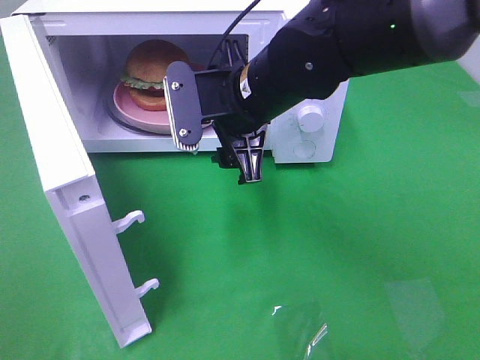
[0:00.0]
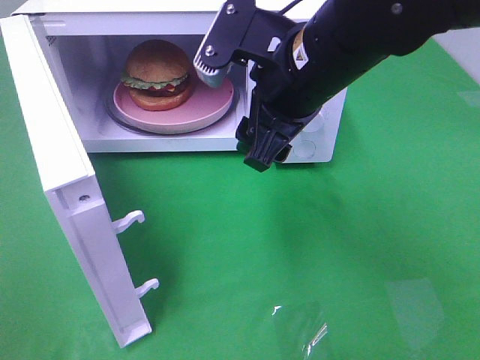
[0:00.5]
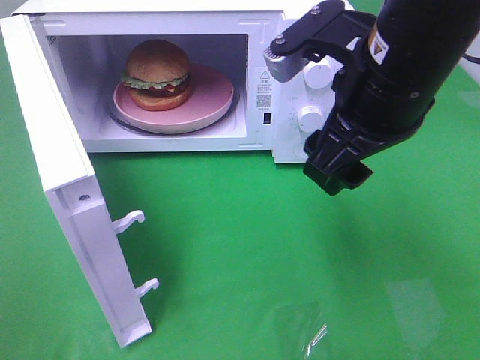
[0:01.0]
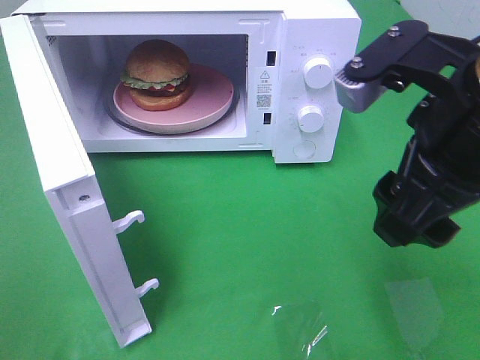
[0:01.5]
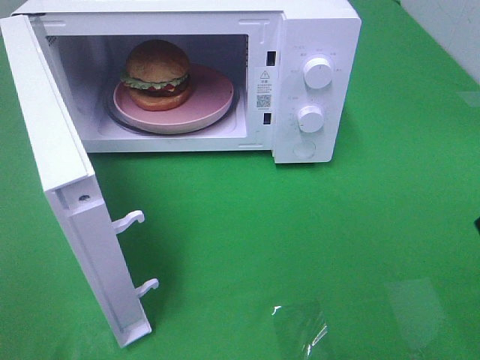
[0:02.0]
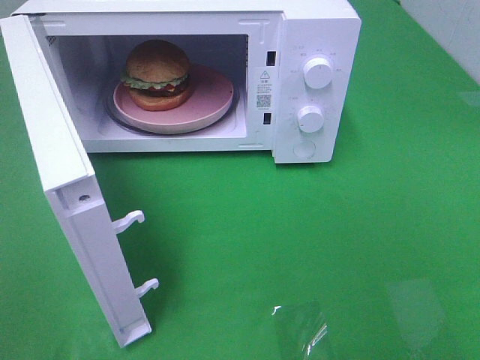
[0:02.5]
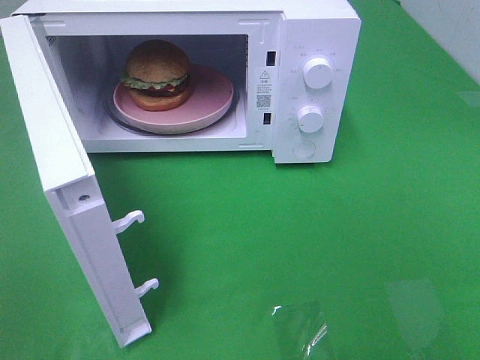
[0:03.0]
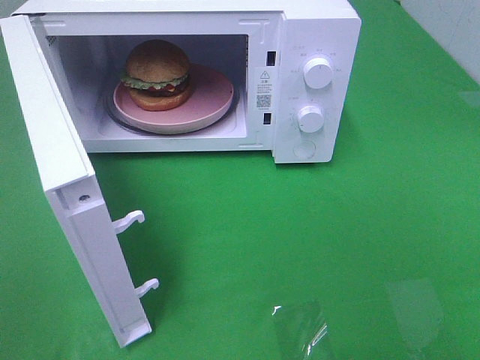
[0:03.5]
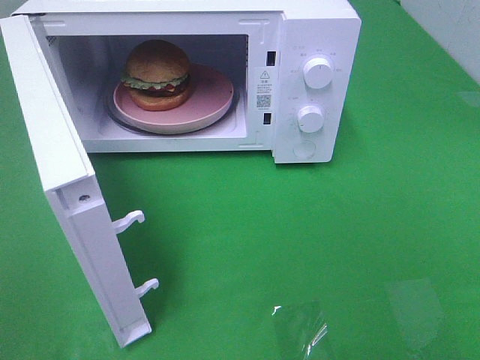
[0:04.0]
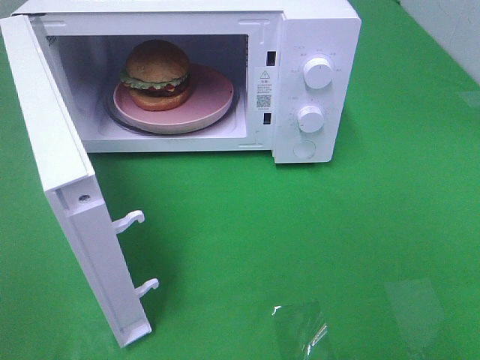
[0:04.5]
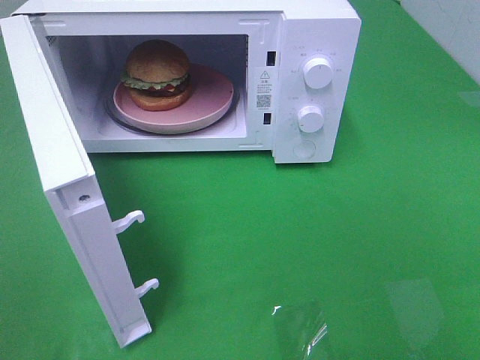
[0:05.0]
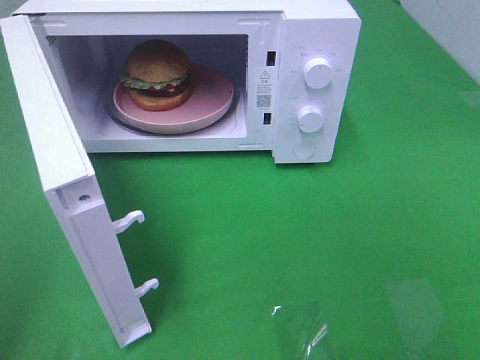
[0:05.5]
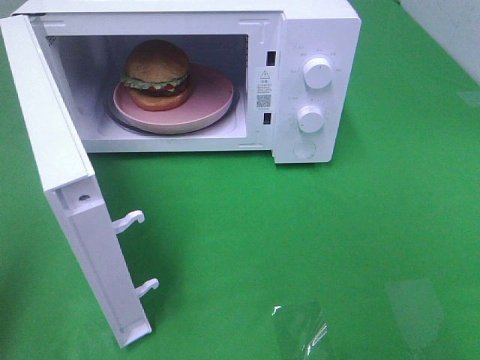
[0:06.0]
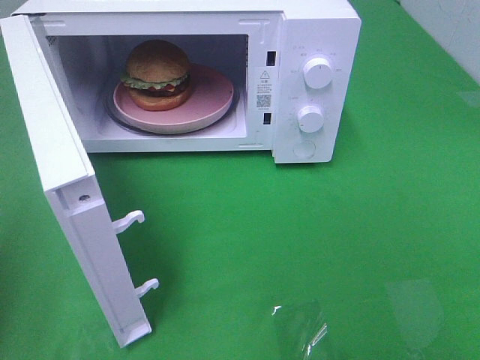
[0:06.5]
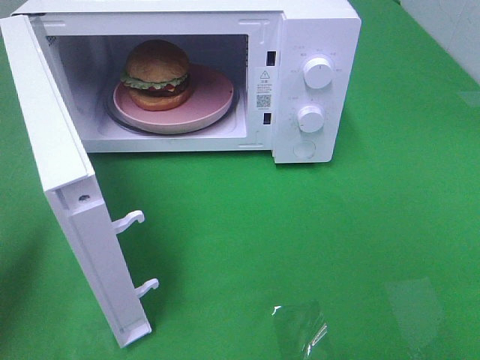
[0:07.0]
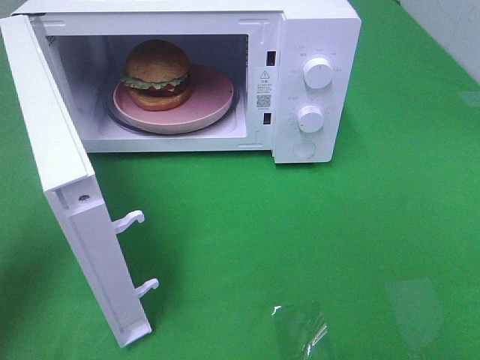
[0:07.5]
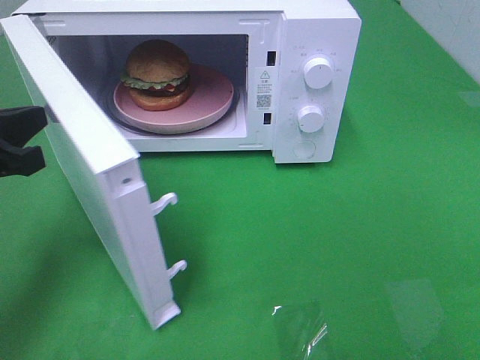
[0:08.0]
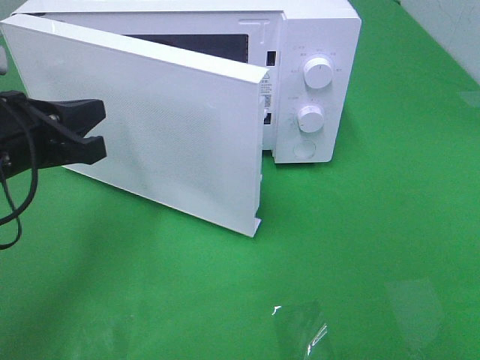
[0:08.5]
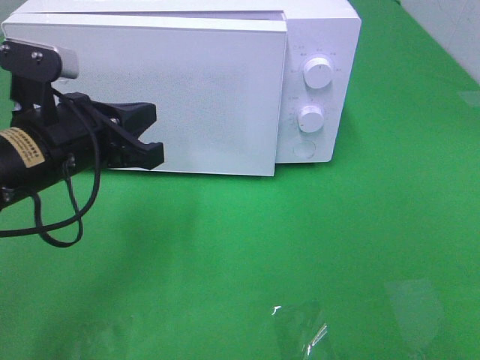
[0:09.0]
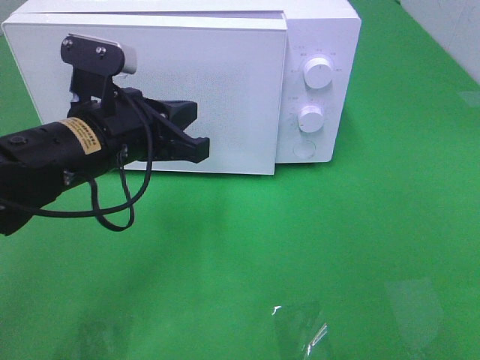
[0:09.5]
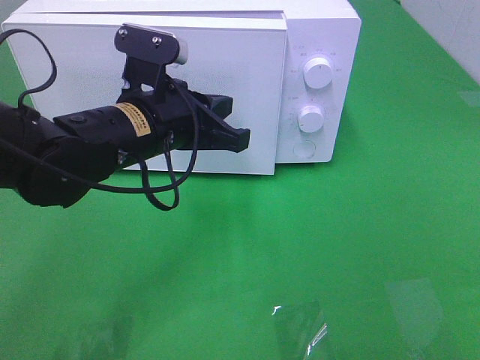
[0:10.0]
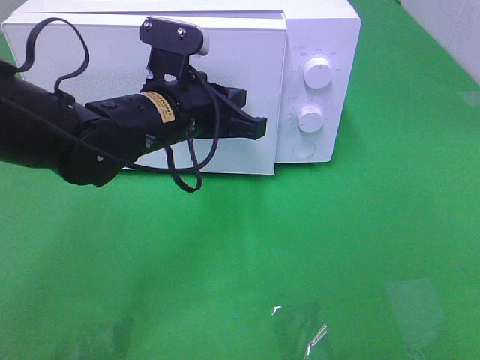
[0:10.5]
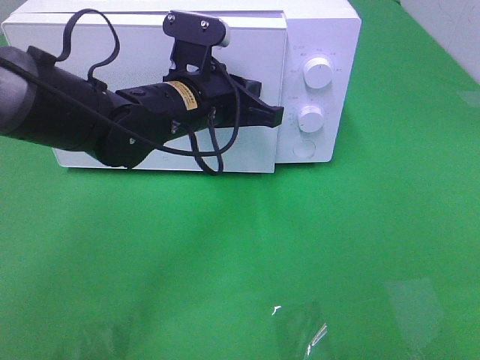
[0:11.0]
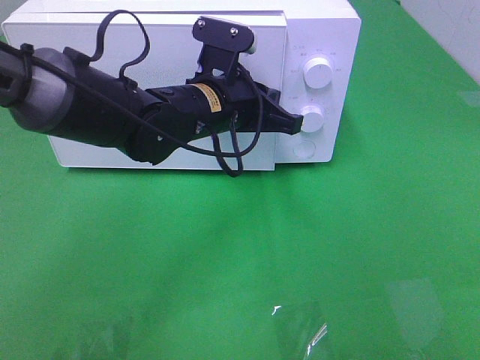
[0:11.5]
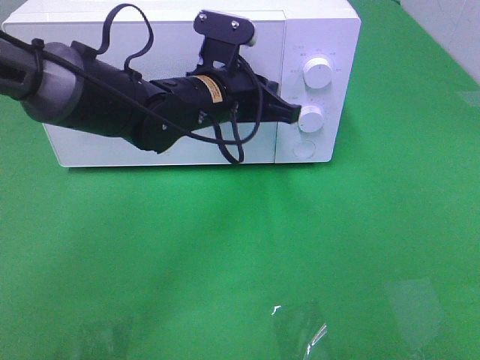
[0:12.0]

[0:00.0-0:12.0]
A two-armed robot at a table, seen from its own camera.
Task of the whole recording: Heat the burger.
0:00.0 to 0:02.0: The right gripper shifts some 30 cm to the right and backward.
0:06.0 to 0:08.0: The left gripper moves forward, downward and to the right, approximately 15 cm.
0:08.0 to 0:10.0: The left gripper travels to the right by approximately 15 cm.
0:10.0 to 0:12.0: The left gripper is displaced forward and to the right by roughly 10 cm.

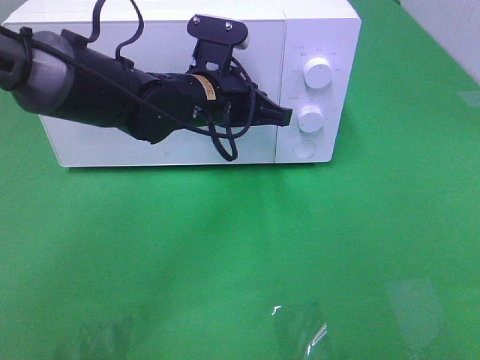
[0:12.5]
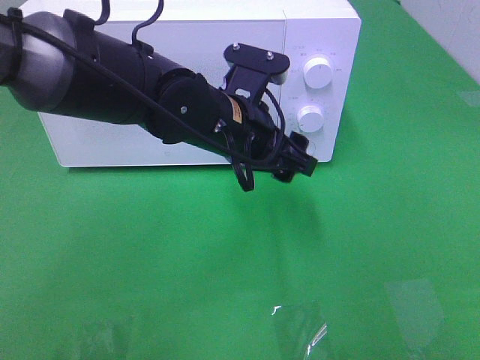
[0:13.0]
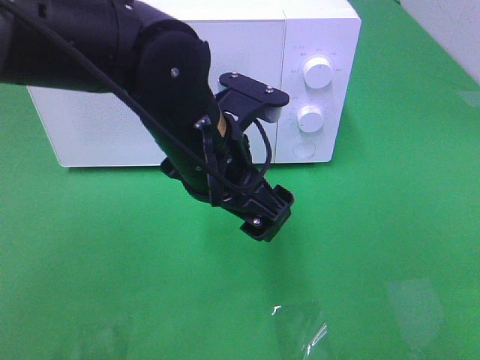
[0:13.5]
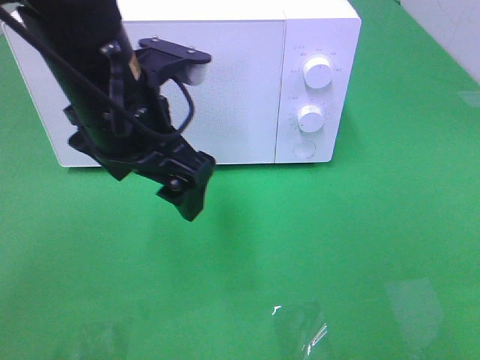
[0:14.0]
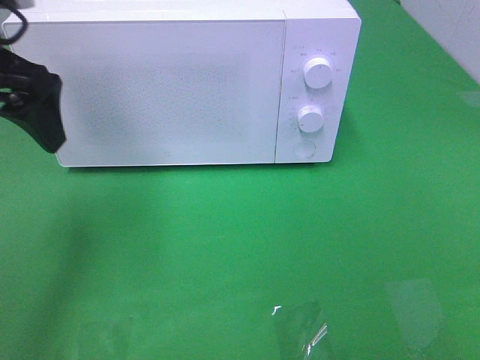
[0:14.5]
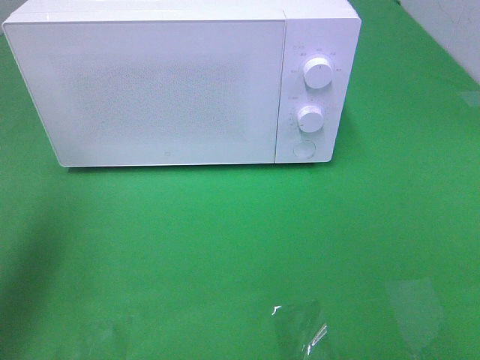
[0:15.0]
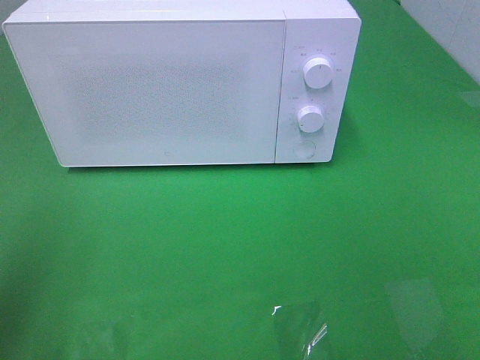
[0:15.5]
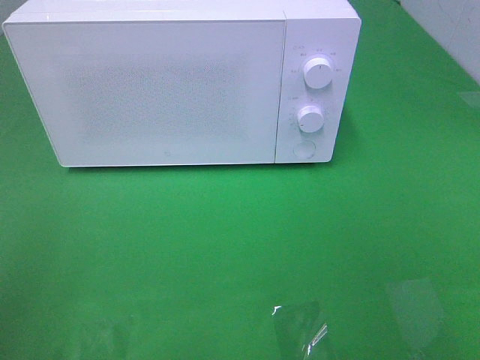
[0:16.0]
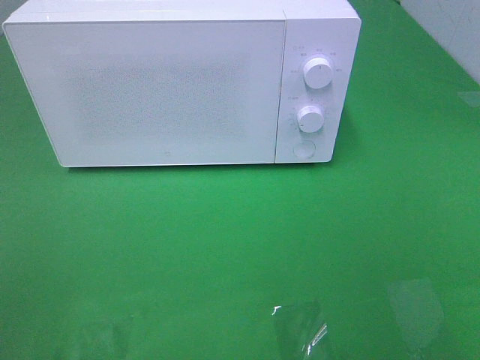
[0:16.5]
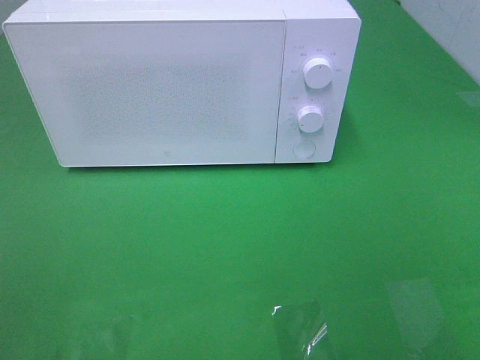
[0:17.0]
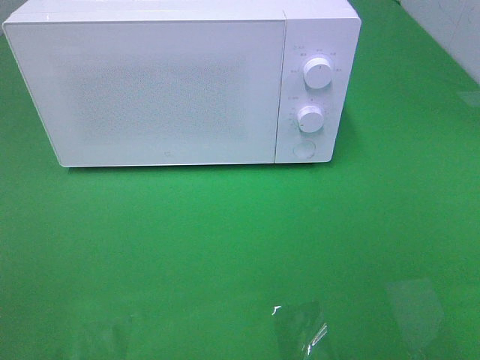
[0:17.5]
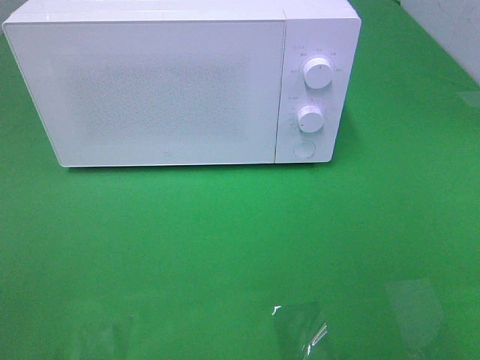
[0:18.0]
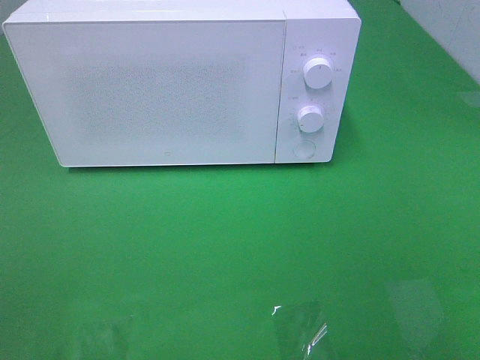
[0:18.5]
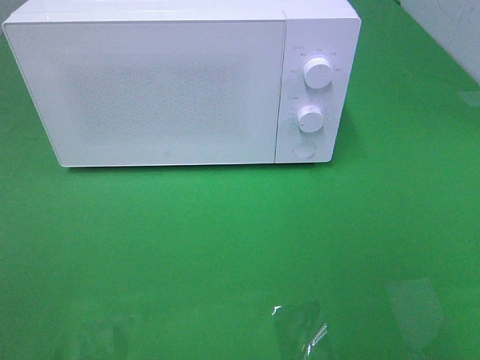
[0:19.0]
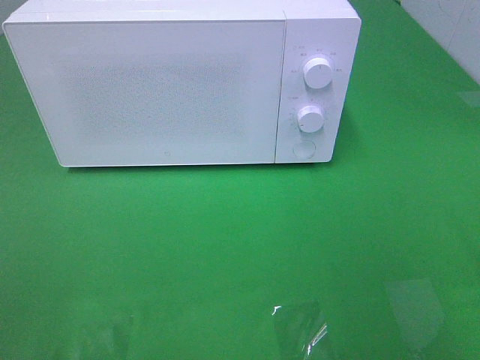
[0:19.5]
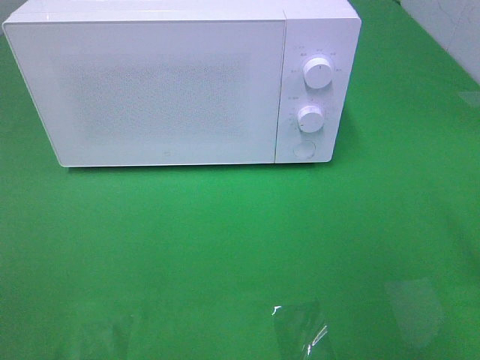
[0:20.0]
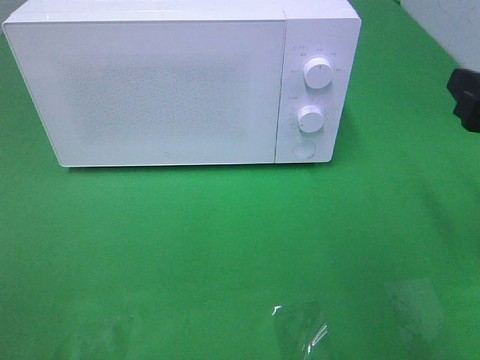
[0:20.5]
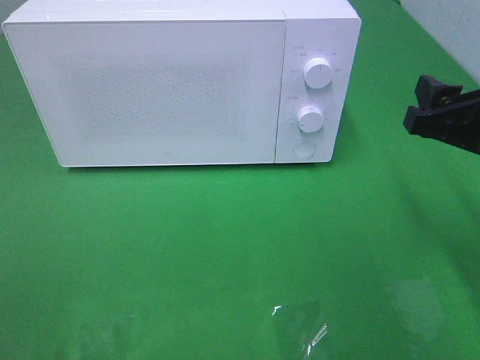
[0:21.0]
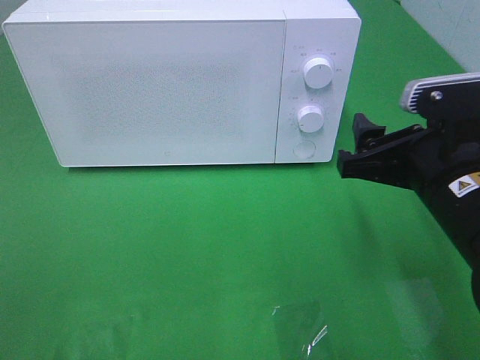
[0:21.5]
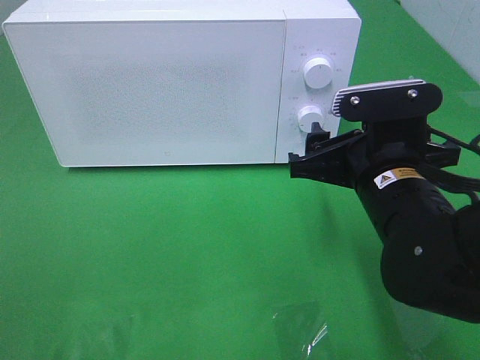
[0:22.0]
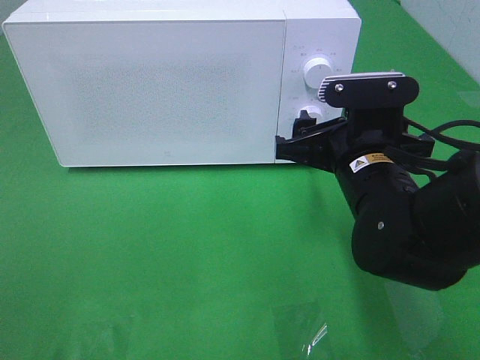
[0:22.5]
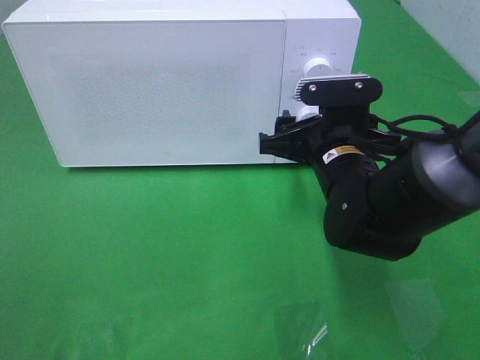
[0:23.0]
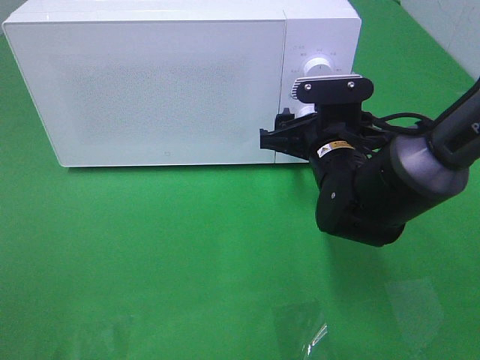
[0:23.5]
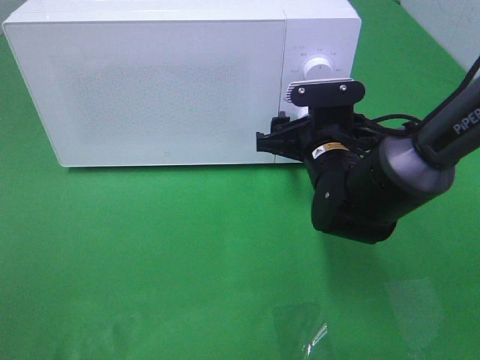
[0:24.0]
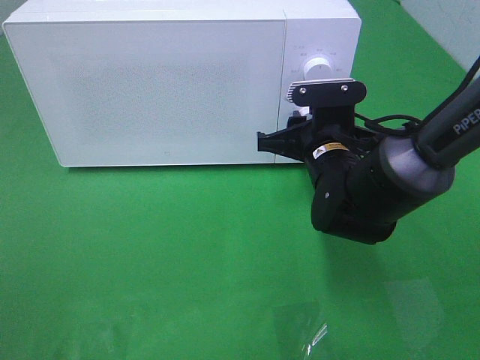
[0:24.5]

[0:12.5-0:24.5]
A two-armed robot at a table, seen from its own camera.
Task of the whole recording: Heat the burger.
0:12.5 to 0:14.5: The left gripper goes some 25 cm to the left and upward, and opens up.
0:14.5 to 0:16.5: The left gripper is displaced backward by roughly 30 cm.
0:16.5 to 0:18.5: The two grippers keep their place.
0:18.5 to 0:20.5: The right gripper shifts roughly 20 cm forward.
0:20.5 to 0:22.5: The right gripper travels to the left and downward by approximately 15 cm.
0:22.5 to 0:24.5: The right gripper heads forward, covering roughly 5 cm, and closes.

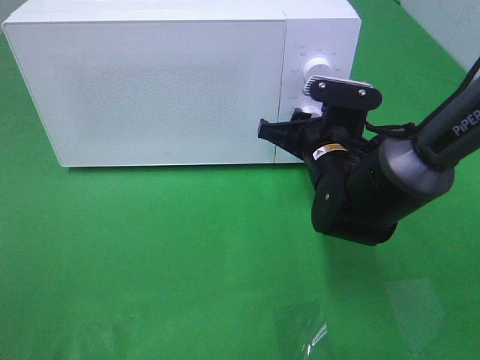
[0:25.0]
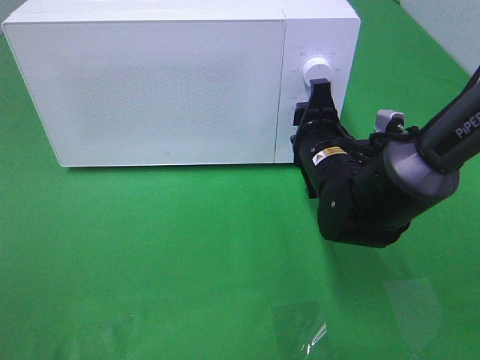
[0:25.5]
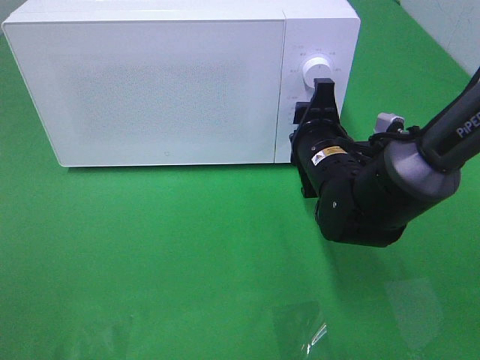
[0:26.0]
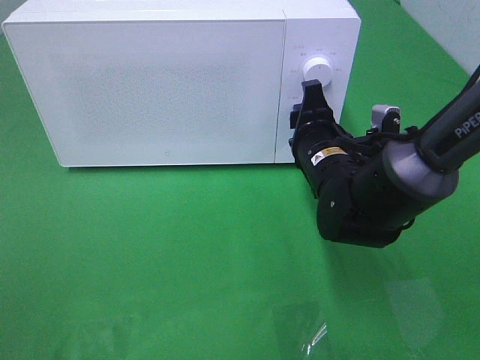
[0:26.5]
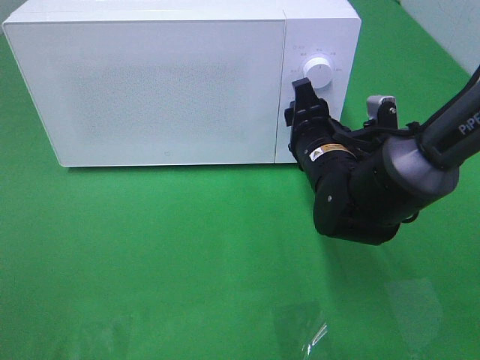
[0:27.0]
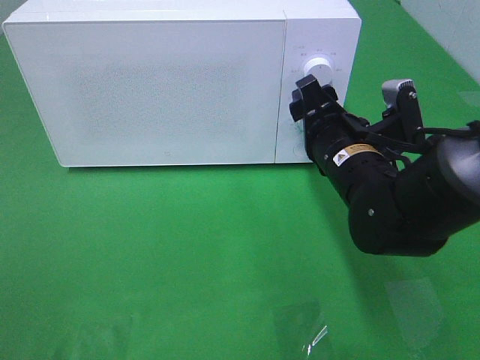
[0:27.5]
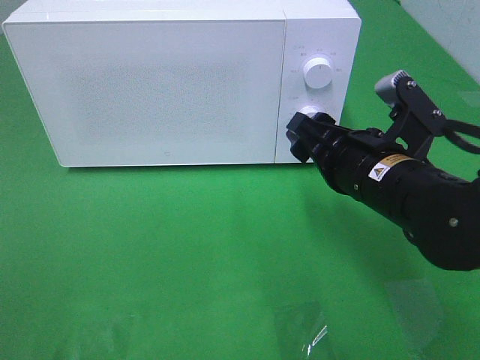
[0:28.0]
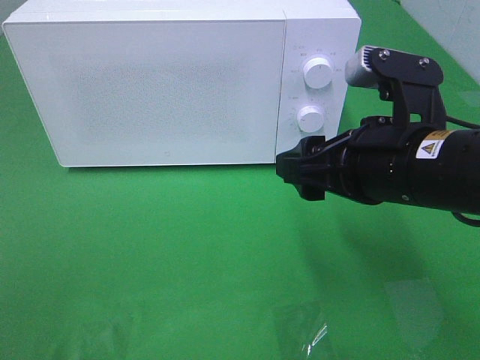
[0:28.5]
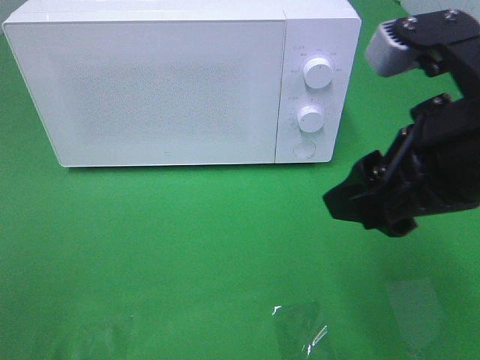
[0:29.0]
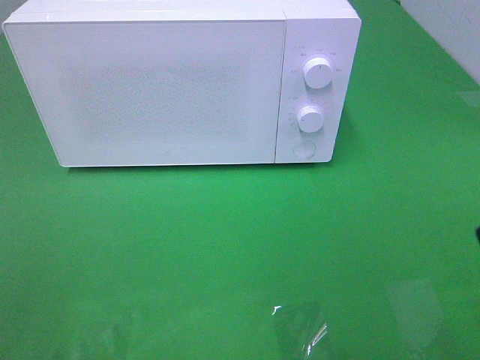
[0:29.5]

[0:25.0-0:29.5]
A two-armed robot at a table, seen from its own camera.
Task of the whole recording: Heat the burger.
Step, 0:25.0 to 0:27.0: Right hand: twist timer button.
0:27.0 to 0:29.5: The right gripper is displaced backward, upward and to the right by roughly 35 cm.
